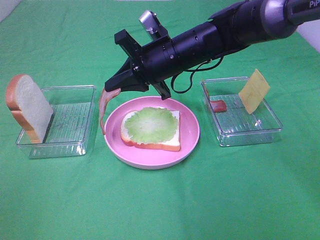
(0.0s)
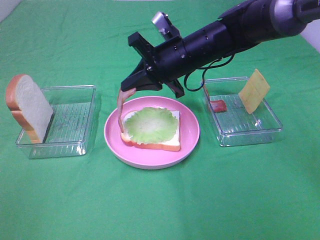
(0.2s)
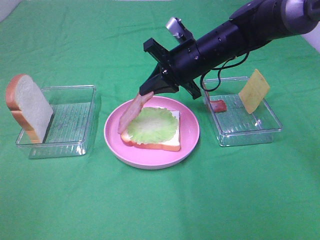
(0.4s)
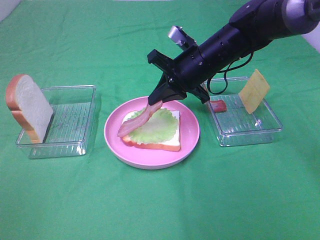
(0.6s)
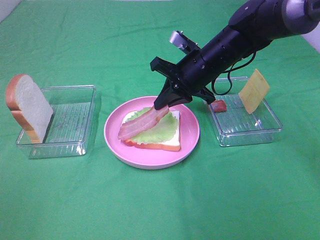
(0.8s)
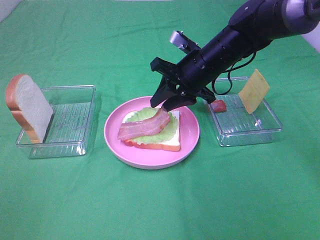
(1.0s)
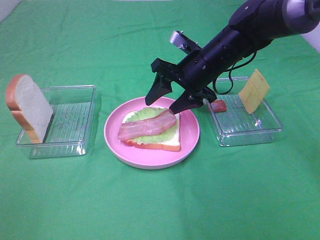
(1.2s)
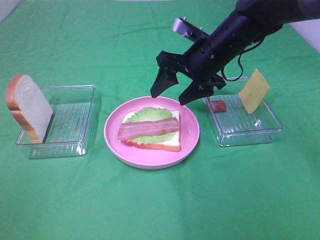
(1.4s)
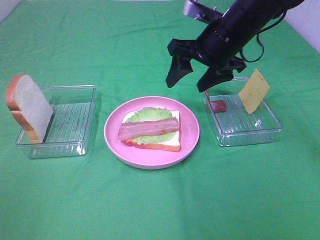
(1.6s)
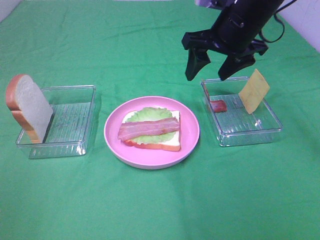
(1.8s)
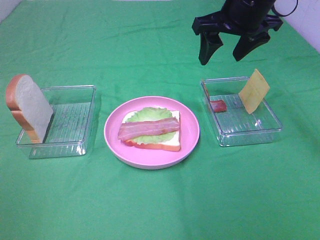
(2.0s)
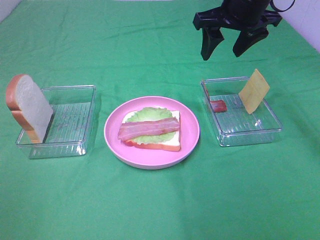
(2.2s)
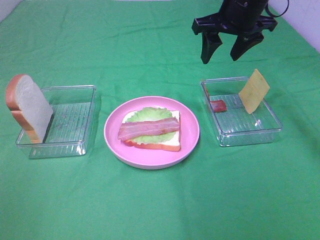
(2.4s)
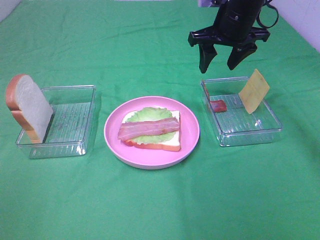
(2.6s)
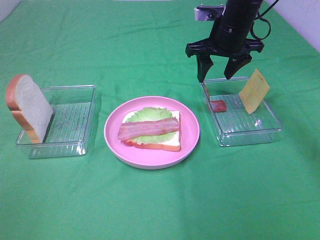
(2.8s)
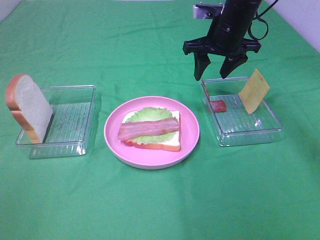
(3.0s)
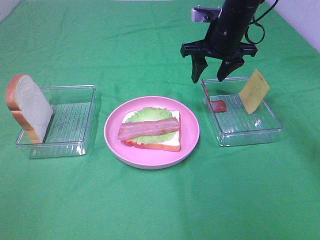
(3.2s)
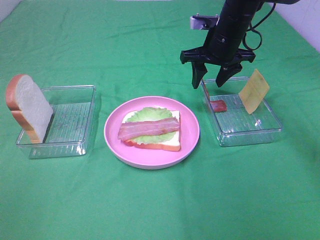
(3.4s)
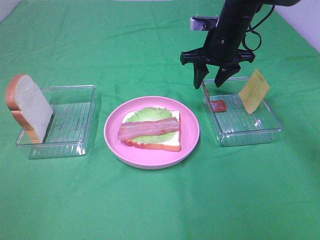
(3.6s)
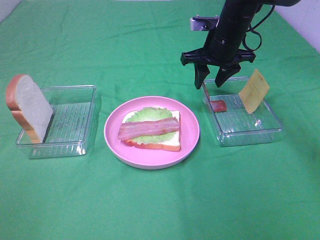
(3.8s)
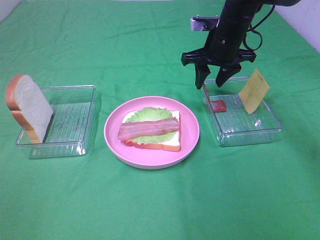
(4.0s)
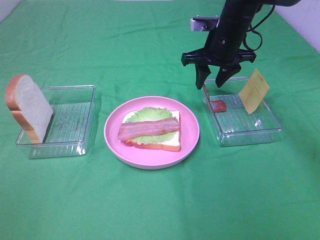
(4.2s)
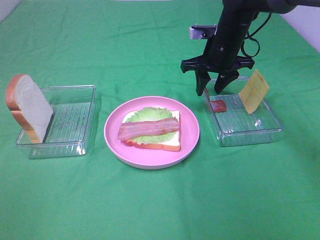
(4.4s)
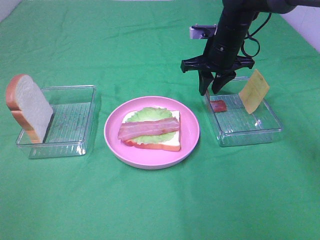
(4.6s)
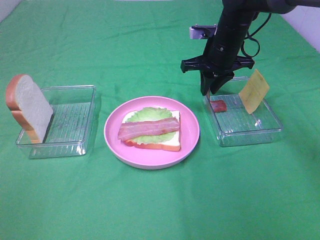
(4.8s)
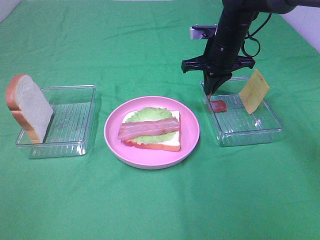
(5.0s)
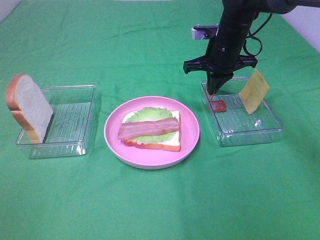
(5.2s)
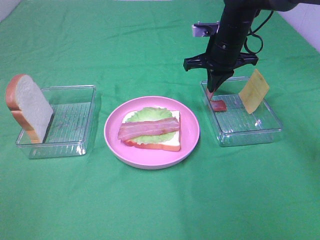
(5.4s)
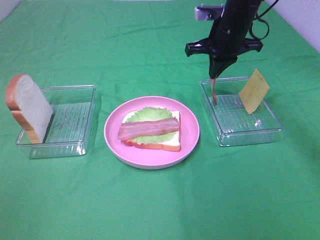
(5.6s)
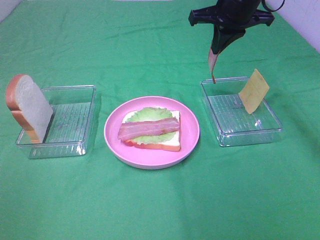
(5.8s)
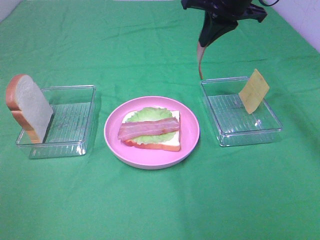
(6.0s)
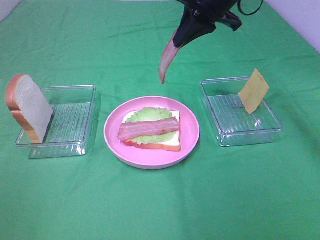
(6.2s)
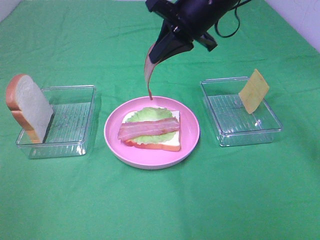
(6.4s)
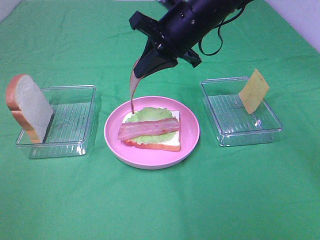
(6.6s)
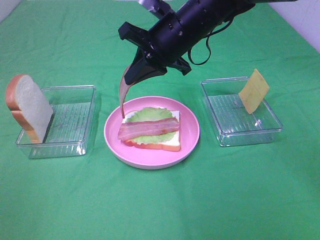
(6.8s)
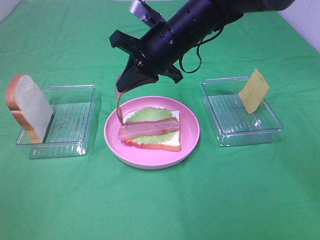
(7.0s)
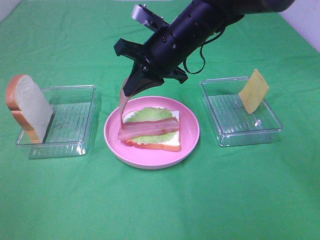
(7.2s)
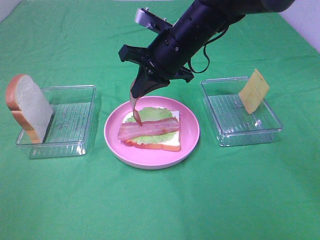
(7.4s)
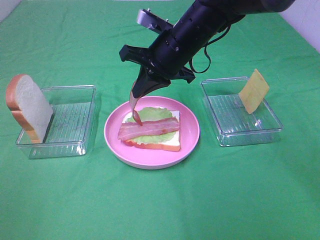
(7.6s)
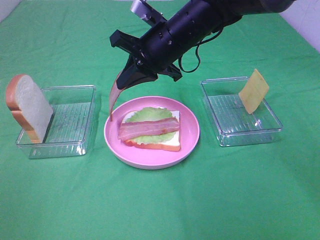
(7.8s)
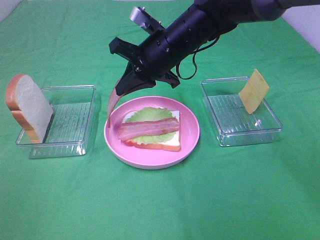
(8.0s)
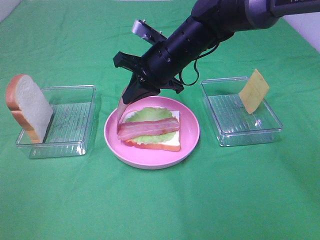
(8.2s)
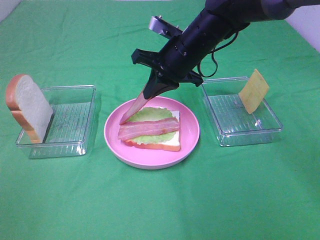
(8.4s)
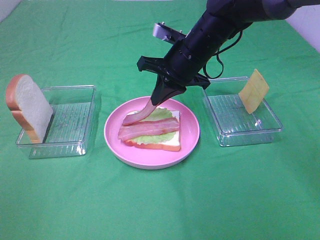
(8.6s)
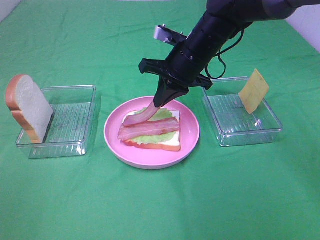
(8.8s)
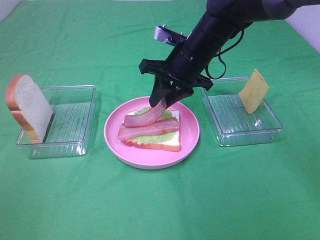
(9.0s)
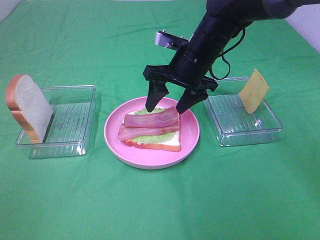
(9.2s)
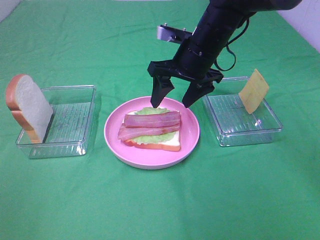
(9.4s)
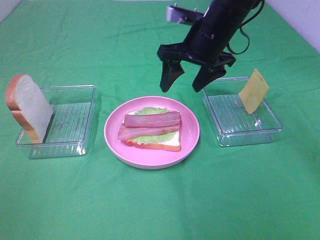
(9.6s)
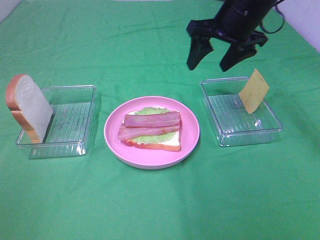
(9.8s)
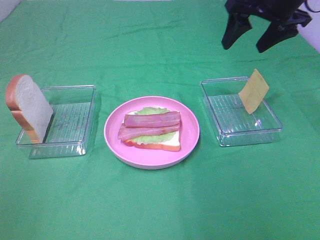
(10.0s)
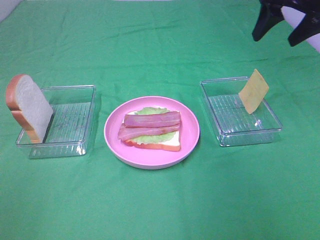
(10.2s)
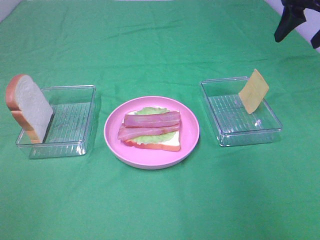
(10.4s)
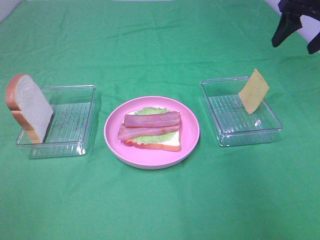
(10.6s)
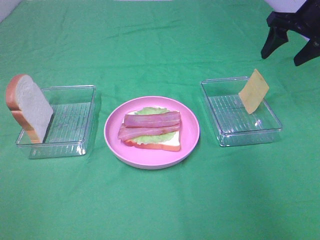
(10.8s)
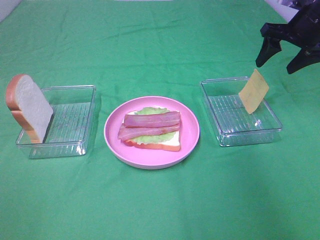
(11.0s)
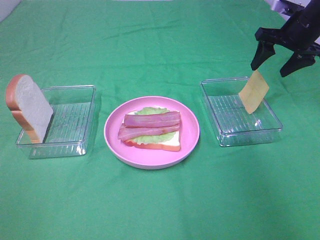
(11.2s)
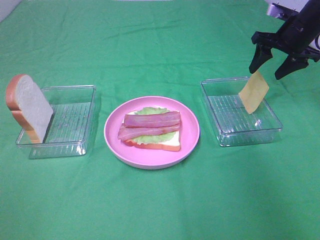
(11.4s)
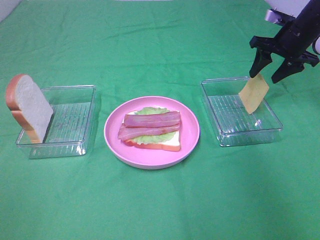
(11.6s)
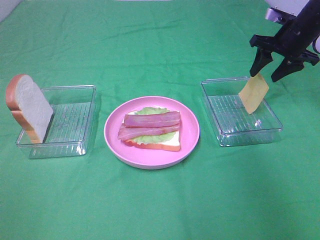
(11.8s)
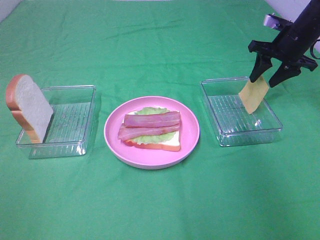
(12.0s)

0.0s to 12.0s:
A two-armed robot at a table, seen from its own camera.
Task of the whole recording: Make sandwiches.
Step, 1.6s to 5.6s: Right hand:grab the bacon.
Step, 5.8s to 9.4s: Right hand:place bacon on bacon.
0.0s to 1.6s: The right gripper travels to the right by some 10 cm, and opens its fingers.
1.6s to 3.0s: The right gripper shifts roughly 5 cm forward.
3.0s to 4.4s: The grippers make only small movements.
4.4s to 6.0s: The right gripper heads upward, covering about 15 cm, and closes its fingers.
6.0s to 7.6s: The right gripper goes about 15 cm downward and to the left.
7.6s to 9.0s: The right gripper opens up.
9.0s to 10.4s: The right gripper heads to the right and upward, covering approximately 25 cm, and opens its fingers.
10.4s to 12.0s: The right gripper goes about 15 cm downward and forward.

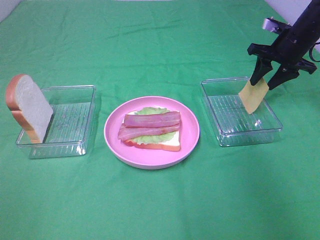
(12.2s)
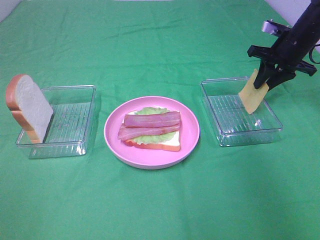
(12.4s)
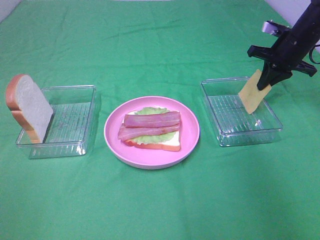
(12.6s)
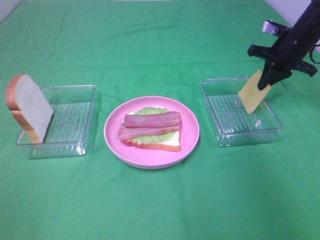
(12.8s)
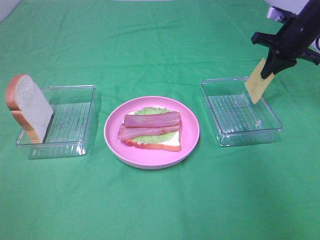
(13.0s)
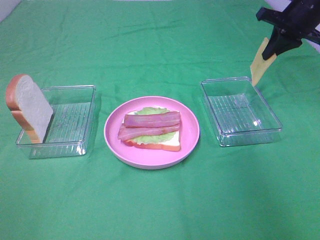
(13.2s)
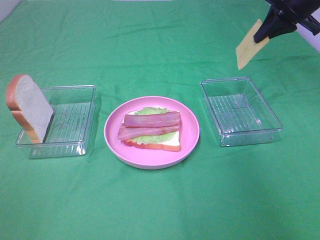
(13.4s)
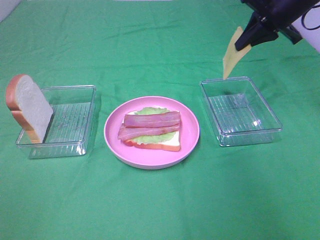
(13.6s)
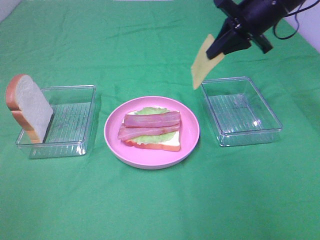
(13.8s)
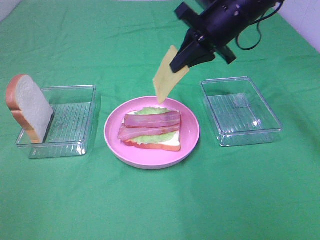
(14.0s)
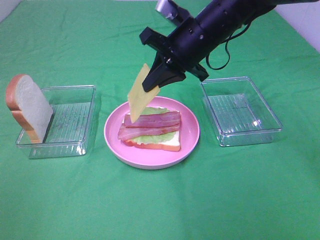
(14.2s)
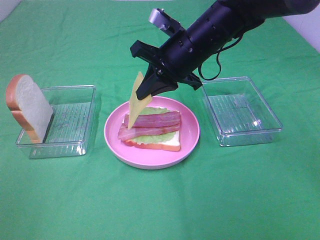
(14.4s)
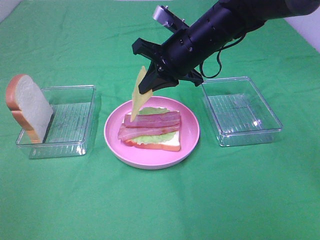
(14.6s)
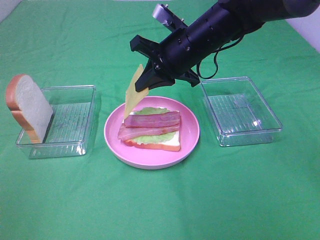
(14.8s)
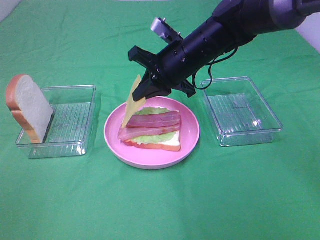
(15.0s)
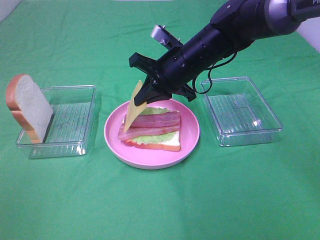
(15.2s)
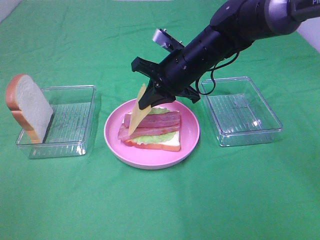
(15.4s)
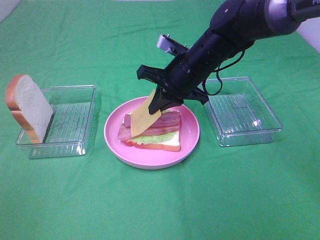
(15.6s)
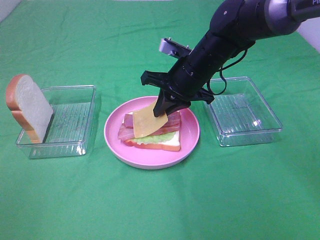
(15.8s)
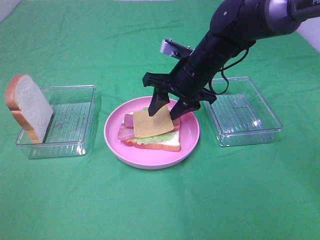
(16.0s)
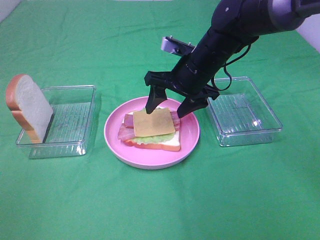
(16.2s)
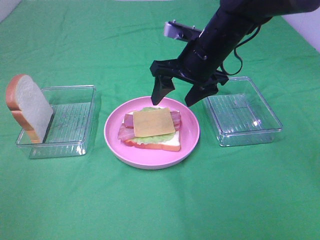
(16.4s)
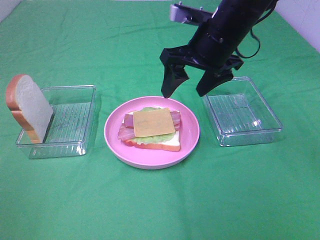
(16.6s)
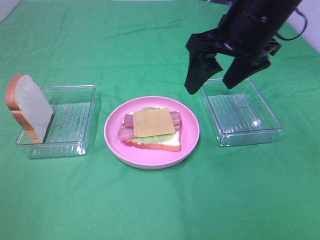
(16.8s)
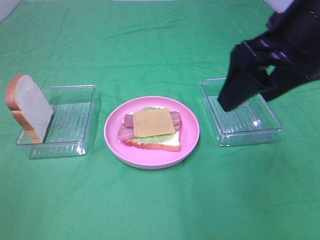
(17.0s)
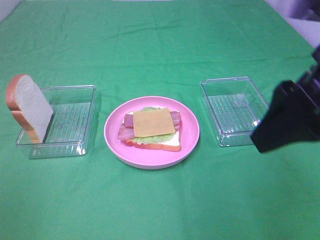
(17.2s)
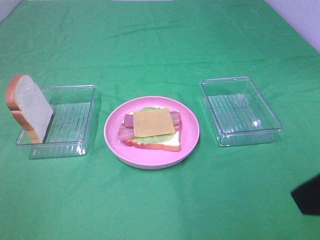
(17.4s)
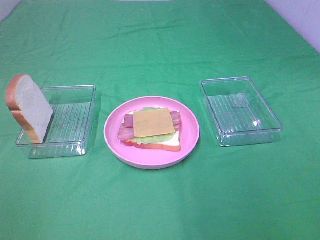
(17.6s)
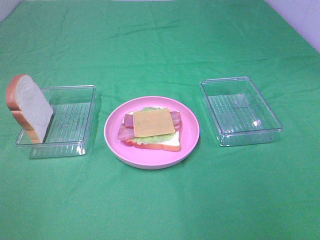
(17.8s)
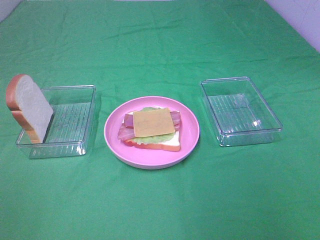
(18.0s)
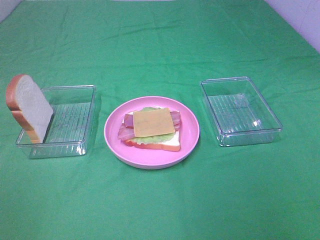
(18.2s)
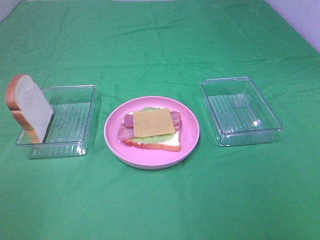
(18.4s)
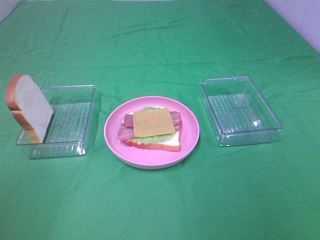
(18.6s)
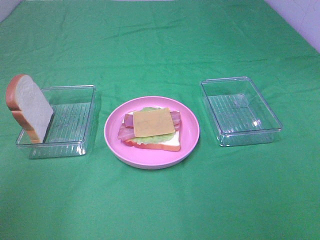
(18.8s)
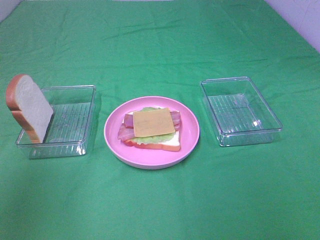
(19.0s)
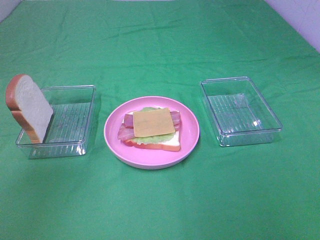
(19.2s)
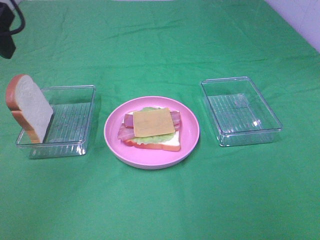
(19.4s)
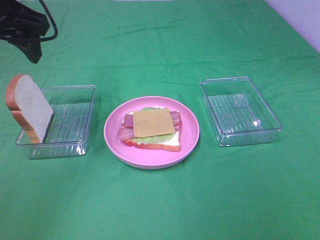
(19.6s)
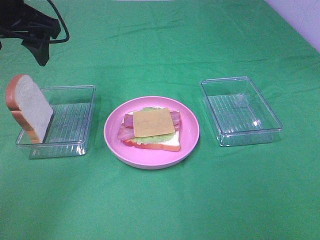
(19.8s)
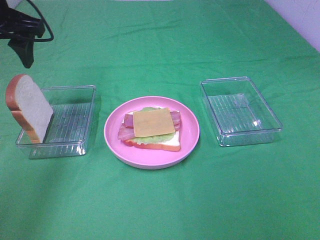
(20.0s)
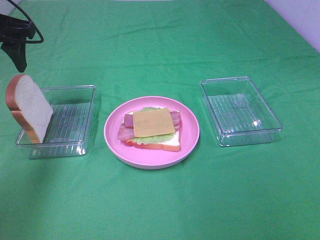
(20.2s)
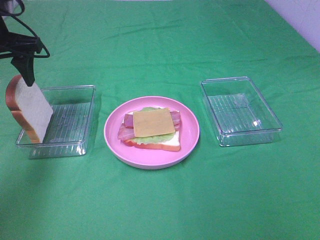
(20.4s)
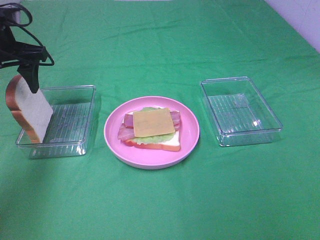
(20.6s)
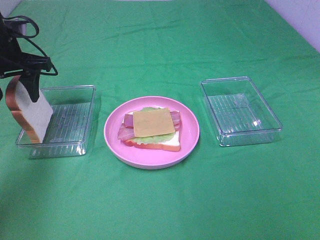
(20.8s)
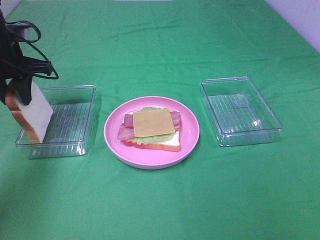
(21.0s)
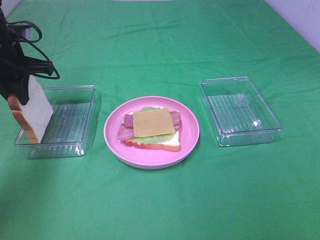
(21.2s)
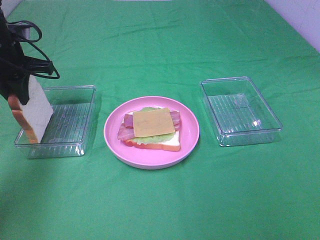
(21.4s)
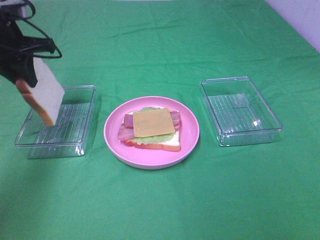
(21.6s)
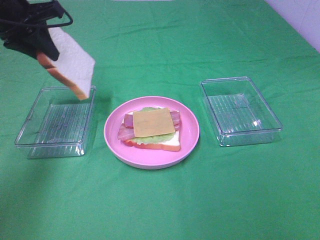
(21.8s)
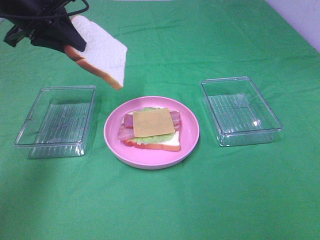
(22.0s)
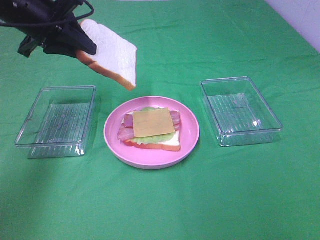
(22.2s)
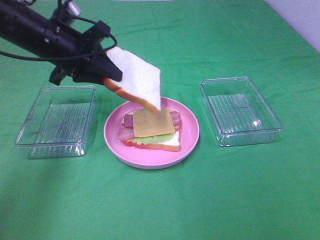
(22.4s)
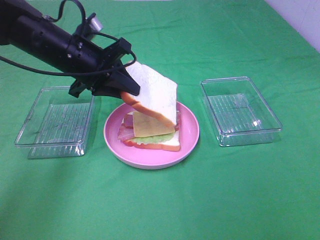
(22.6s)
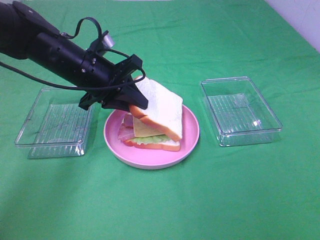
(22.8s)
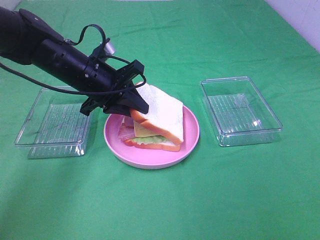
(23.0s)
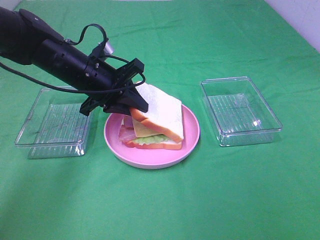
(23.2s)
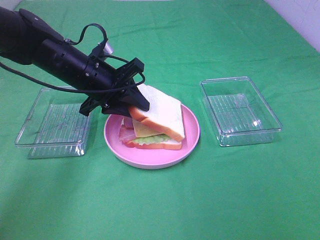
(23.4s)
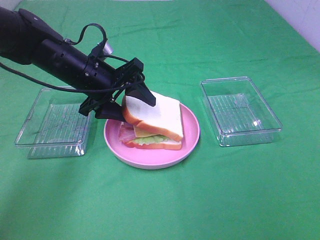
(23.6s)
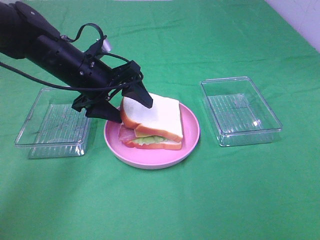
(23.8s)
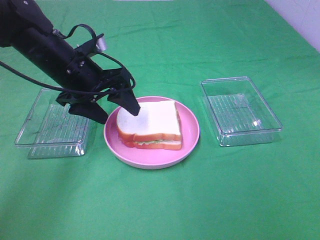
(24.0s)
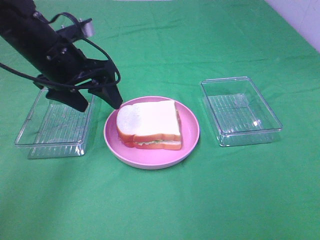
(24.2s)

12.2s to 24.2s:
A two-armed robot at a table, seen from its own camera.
Task of the whole recording: Make sandwiches.
Step, 13.0s to 16.4s: Right hand:place the cheese slice on top of the bacon.
Step, 16.6s to 21.2s: Left hand:grab the bread slice.
Step, 21.4s to 24.0s: Left hand:place the bread slice on the cheese slice.
12.2s to 13.8s: The right gripper moves to the left, upward and backward, approximately 15 cm, and closes its fingers.
13.8s to 15.2s: The right gripper heads to the left and downward, covering approximately 15 cm.
15.2s to 16.6s: The right gripper travels upward by roughly 10 cm, and opens up.
16.6s to 18.2s: The right gripper heads backward and to the right, covering about 40 cm.
18.2s to 19.8s: The left gripper goes about 35 cm forward.
19.8s to 21.2s: The left gripper shifts about 15 cm downward, to the left and forward, and closes its fingers.
21.2s to 22.6s: The left gripper is displaced to the right by roughly 15 cm.
22.6s to 24.2s: The left gripper opens up.
